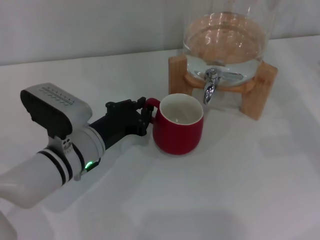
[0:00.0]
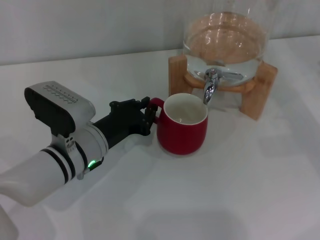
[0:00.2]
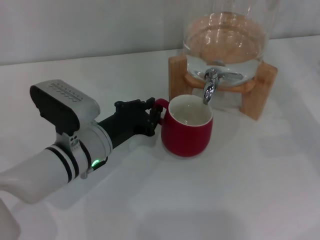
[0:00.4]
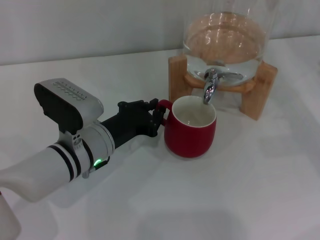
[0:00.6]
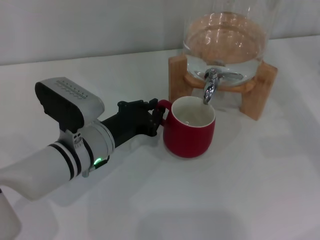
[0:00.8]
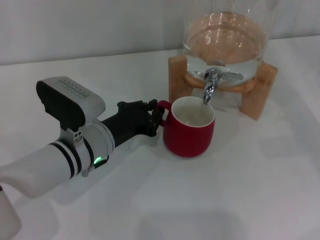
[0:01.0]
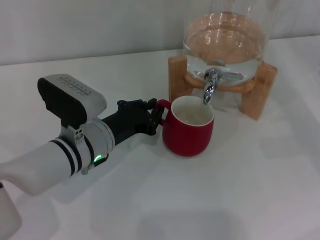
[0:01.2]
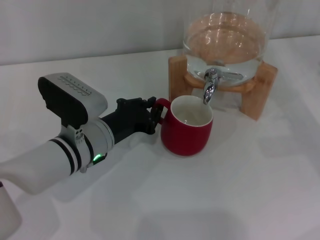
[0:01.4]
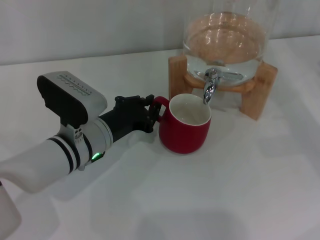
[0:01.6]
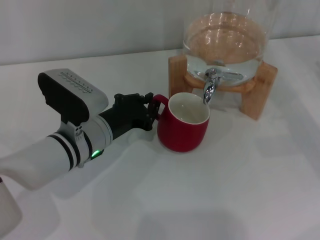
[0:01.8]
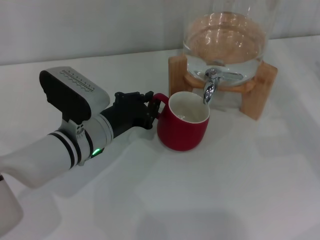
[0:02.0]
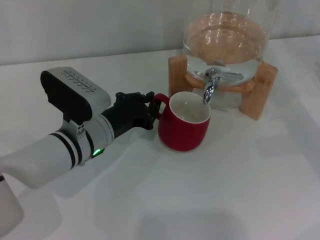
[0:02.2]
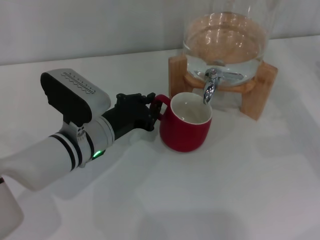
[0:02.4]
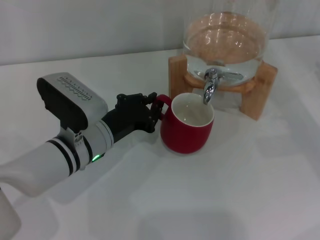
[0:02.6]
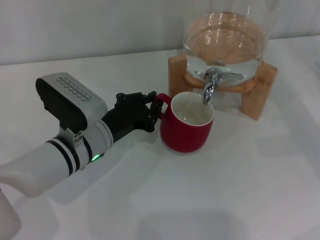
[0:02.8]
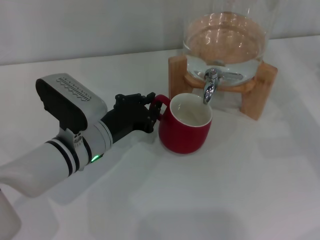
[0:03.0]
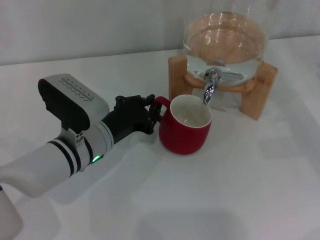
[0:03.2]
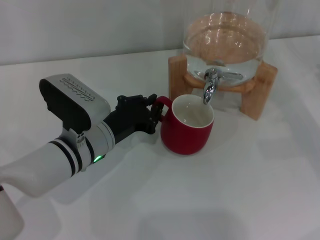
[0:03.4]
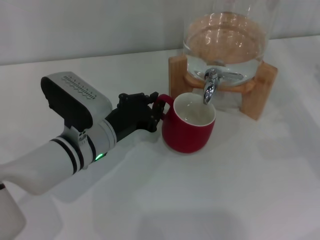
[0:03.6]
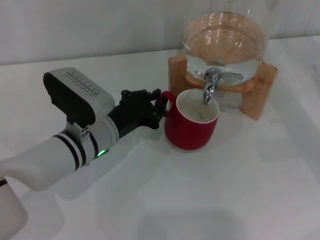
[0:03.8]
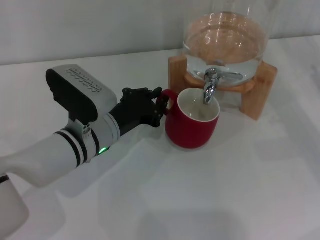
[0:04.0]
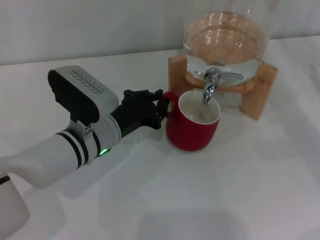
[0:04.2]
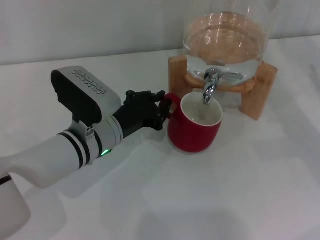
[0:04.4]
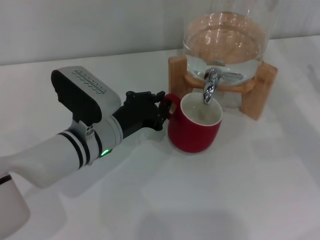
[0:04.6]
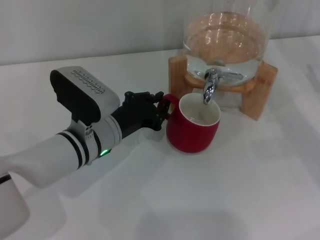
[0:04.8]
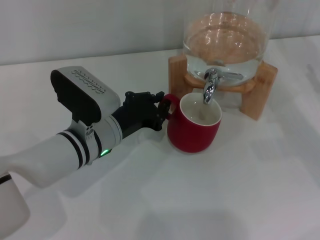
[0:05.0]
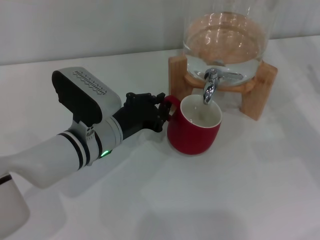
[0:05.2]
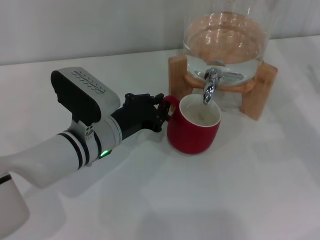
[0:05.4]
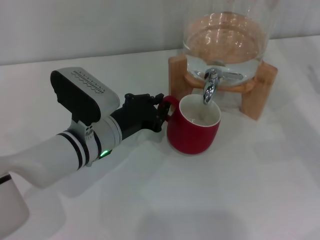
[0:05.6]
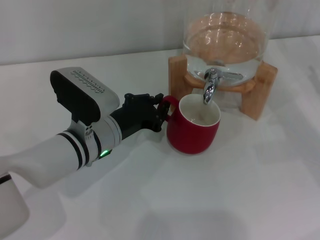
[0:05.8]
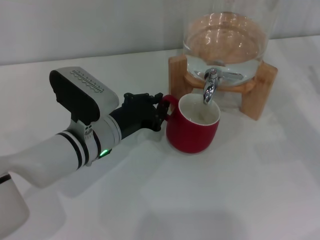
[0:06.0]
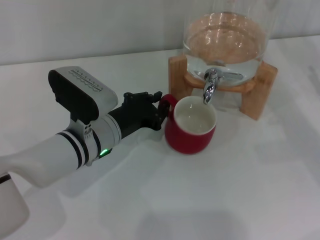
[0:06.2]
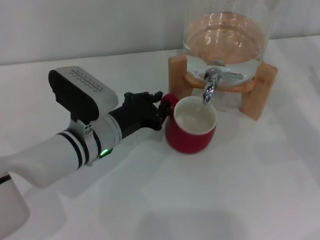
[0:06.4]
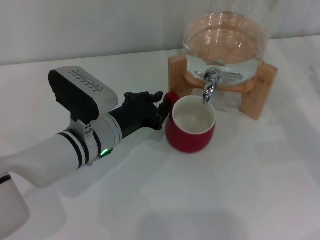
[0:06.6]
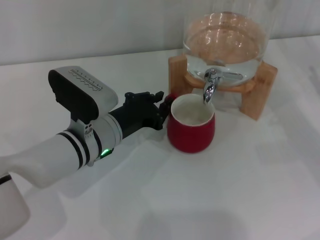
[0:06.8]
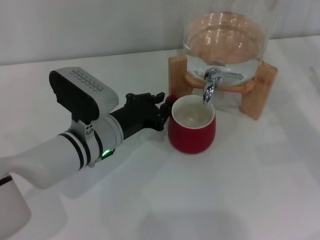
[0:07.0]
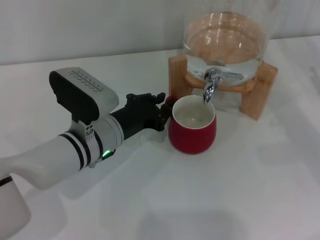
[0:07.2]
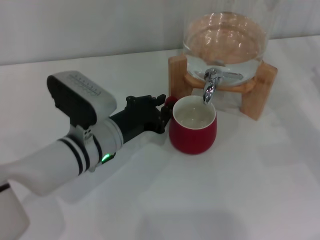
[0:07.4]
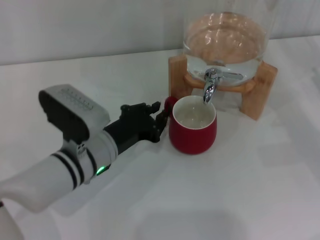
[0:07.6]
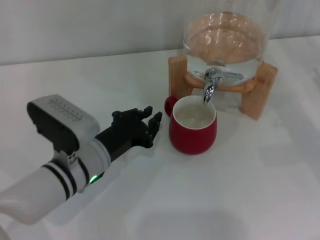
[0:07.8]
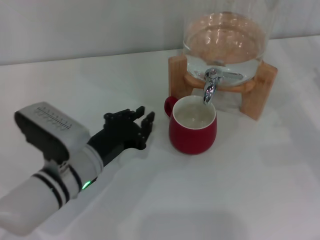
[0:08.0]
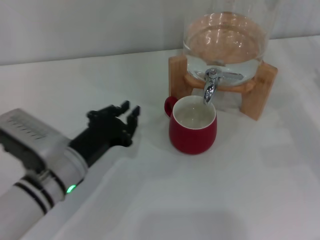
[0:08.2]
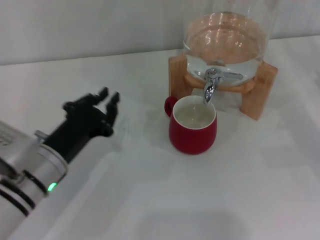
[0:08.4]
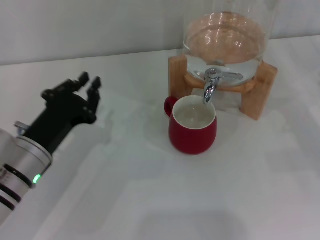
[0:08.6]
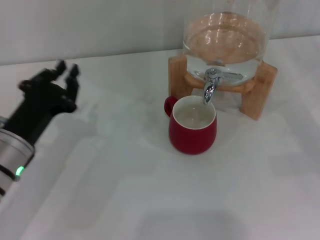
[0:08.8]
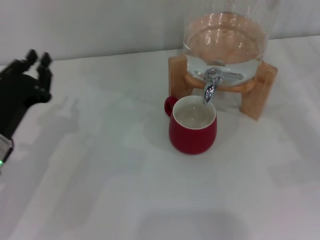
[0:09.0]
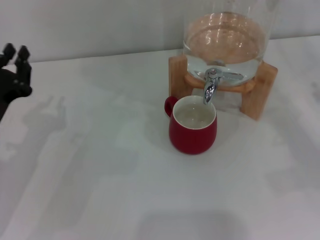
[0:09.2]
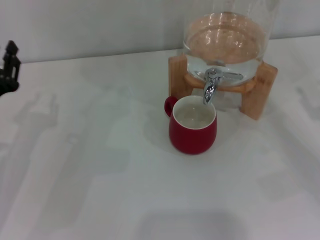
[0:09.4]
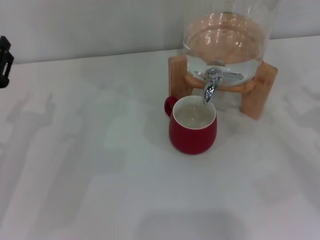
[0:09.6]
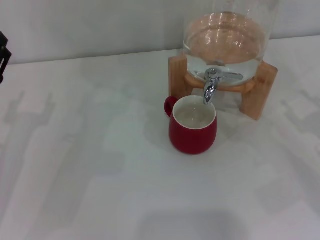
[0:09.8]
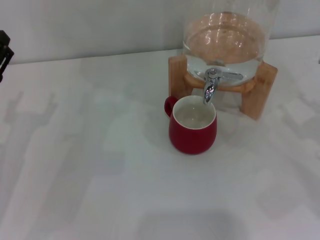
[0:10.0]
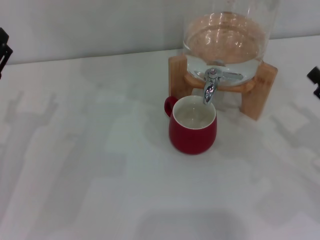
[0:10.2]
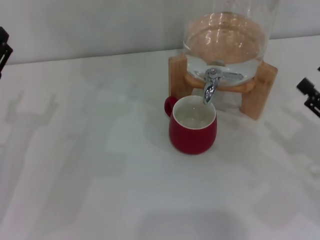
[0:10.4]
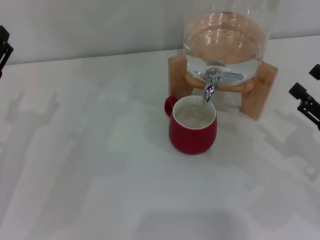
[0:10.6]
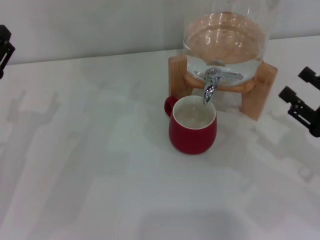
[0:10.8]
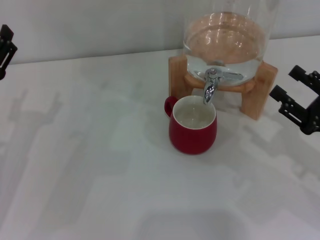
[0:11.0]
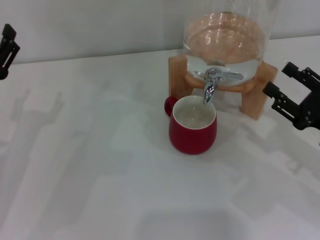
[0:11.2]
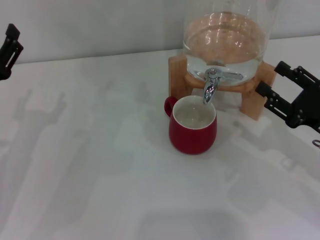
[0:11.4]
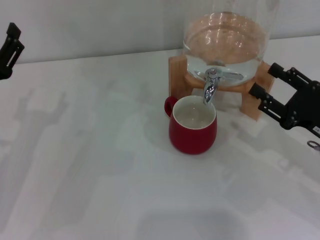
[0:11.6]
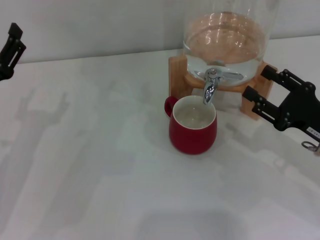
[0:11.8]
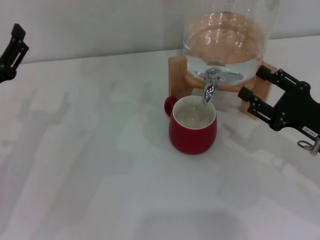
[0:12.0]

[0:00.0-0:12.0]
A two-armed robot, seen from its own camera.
Task of the whole recording: the left gripper pick up the red cup and place it horizontally under the faucet, the right gripper turn on the faucet to fill the cup, and then turn off the faucet.
Step, 0:00.0 to 0:07.6: Move the cup beneath the water dispenser nozzle with the left gripper.
0:00.0 to 0:01.6: There are only small adjustments of the grippers.
0:01.6 to 0:03.0: The two grippers keep their place.
0:03.0 to 0:04.4: The grippers make only small movements.
0:04.4 to 0:06.0: The two grippers keep their place.
0:06.0 to 0:07.6: There are only small adjustments of the grippers.
0:07.6 to 0:09.0: The left gripper shifts roughly 15 cm to the left.
0:09.0 to 0:10.4: The left gripper opens, while the right gripper moves to the left, about 5 cm.
0:10.4 to 0:12.0: The right gripper shifts by about 5 cm.

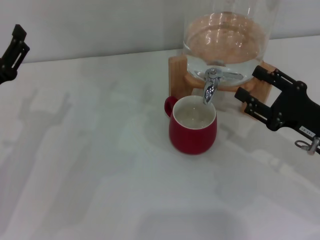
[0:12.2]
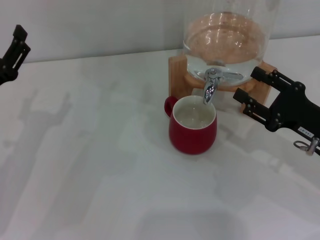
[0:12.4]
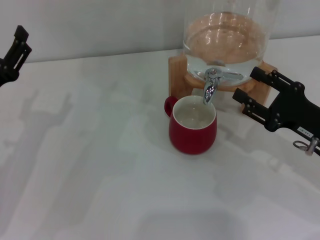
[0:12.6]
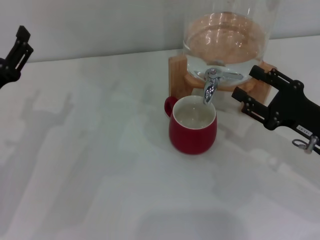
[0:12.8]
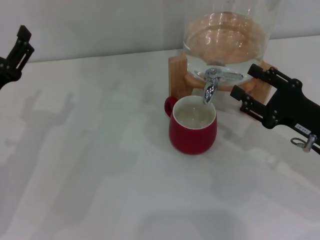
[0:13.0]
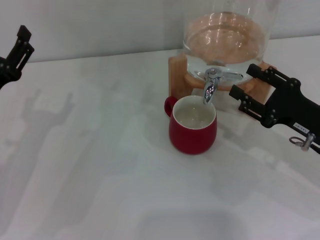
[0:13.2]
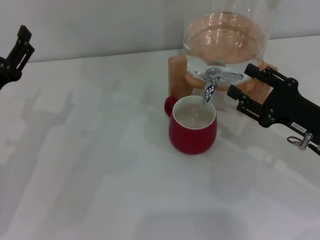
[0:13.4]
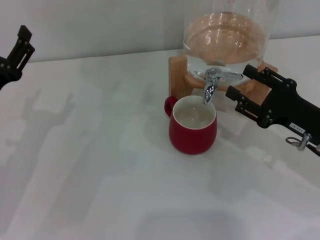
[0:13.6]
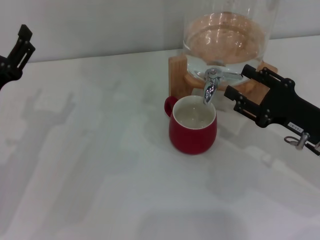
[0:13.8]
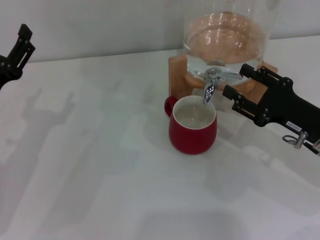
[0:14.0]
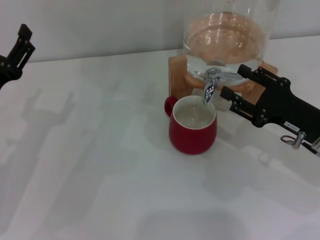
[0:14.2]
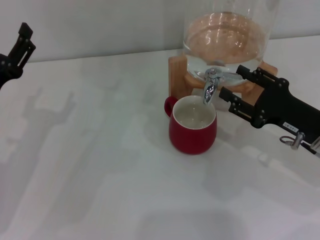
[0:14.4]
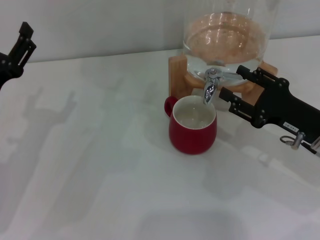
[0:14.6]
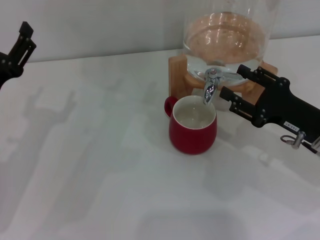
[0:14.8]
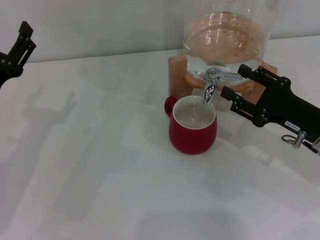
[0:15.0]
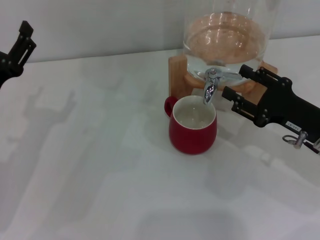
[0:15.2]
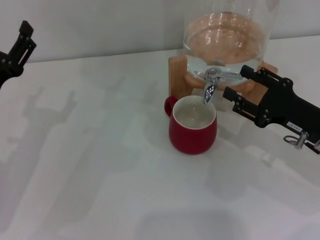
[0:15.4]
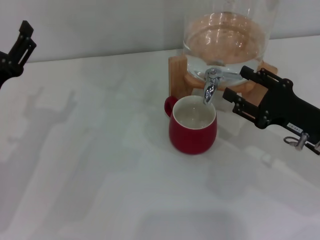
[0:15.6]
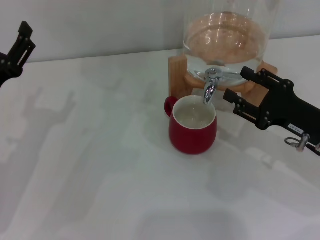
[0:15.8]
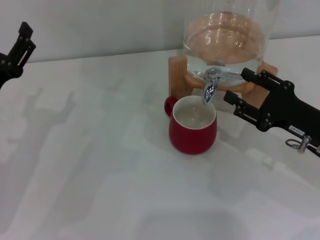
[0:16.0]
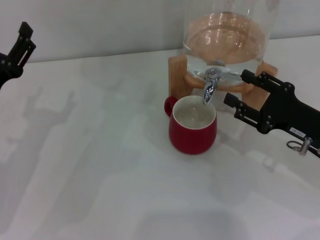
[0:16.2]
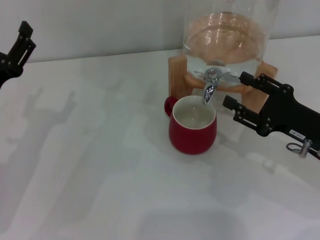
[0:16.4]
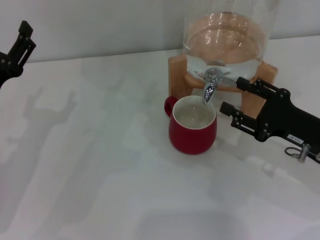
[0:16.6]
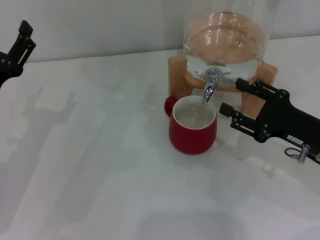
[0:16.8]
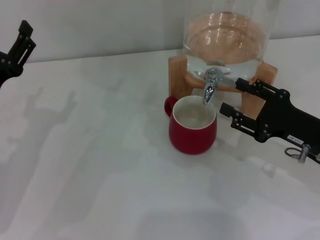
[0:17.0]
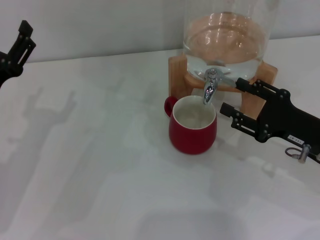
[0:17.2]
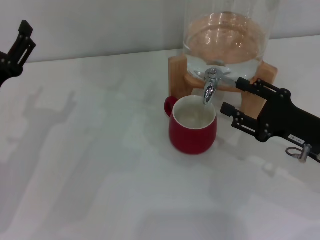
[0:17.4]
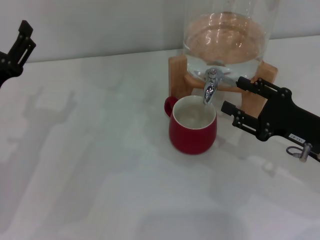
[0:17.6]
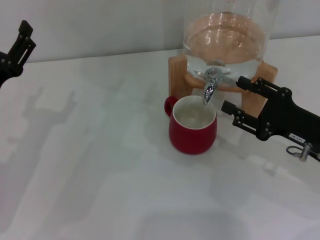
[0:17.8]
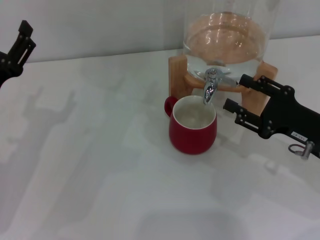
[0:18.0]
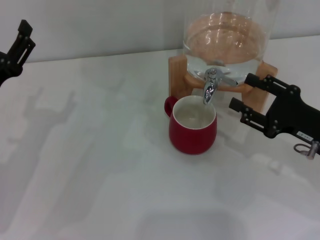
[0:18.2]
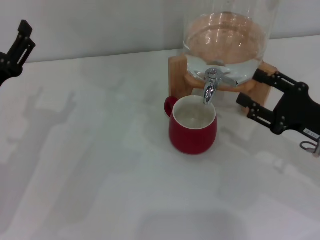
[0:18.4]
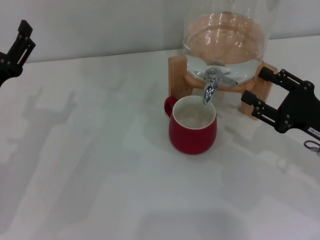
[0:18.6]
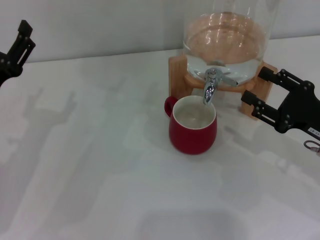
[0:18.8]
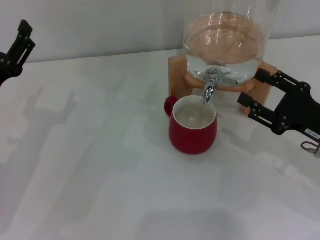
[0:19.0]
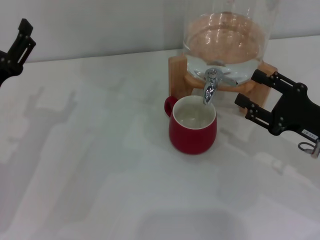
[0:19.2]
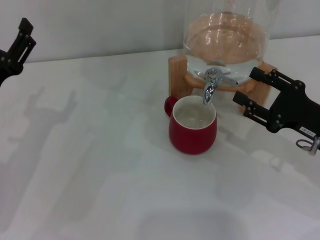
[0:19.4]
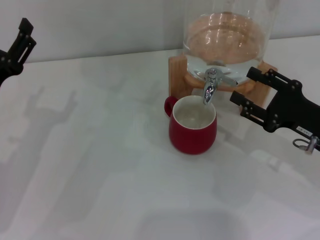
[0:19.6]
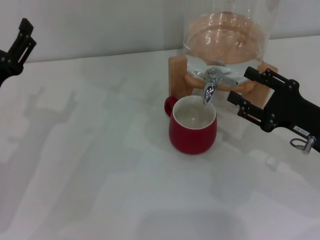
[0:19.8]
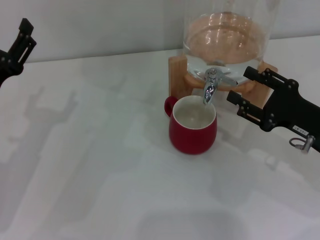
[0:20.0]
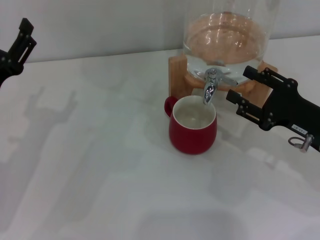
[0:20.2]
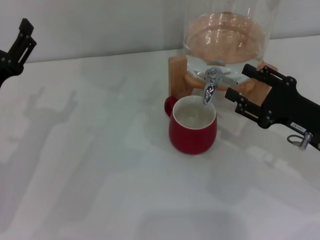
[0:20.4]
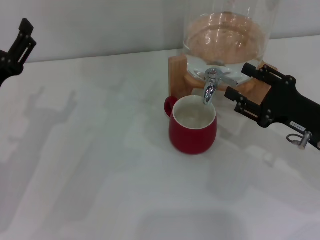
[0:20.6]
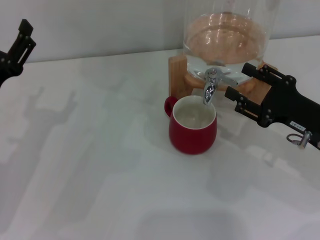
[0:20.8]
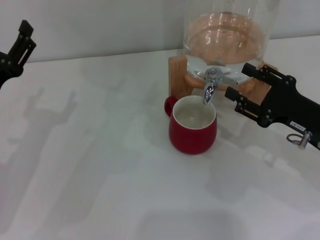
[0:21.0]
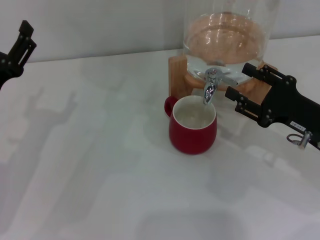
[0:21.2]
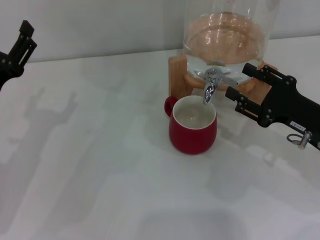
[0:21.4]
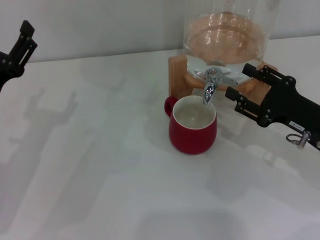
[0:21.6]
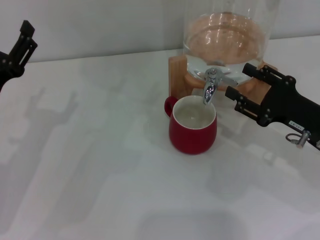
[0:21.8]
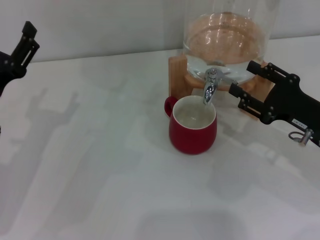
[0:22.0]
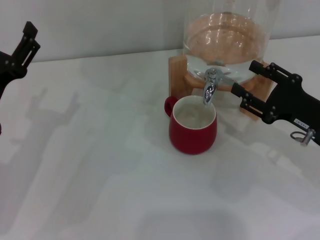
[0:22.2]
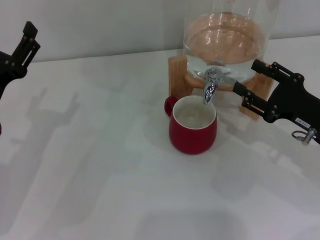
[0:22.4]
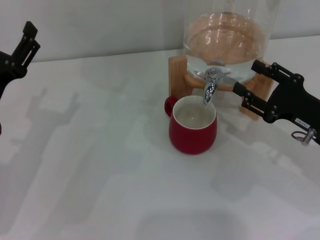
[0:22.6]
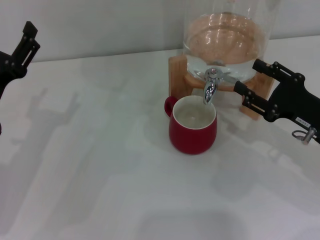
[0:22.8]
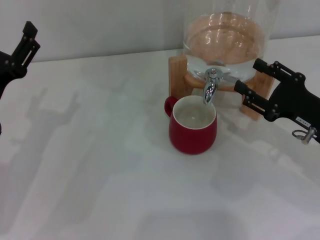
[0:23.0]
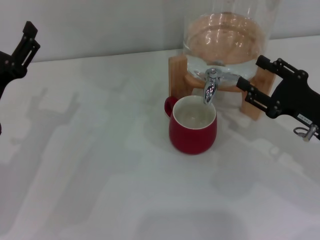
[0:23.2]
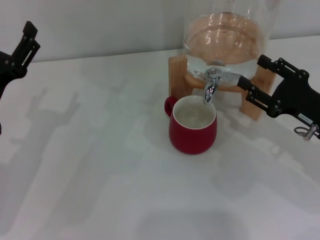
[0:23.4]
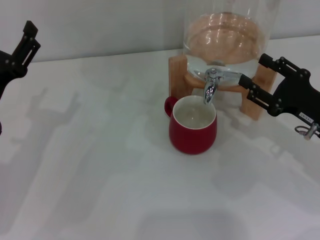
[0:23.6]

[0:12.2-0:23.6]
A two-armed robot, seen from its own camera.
Task of the whole recording: the left gripper pick up the red cup and place it horizontally under the faucet, the right gripper turn on the faucet to fill the cup, and then turn off the faucet.
Step, 0:12.2 to 0:18.2: Open the dispenser valve and fill the cup with water with the right gripper.
0:12.2 to 0:13.6: Both grippers stay put.
0:13.6 to 0:16.4: Neither gripper changes place.
0:16.4 to 0:17.8: Both grippers stay about where they are.
0:17.8 to 0:19.4: There are only small adjustments of the grippers.
0:19.4 to 0:20.8: Both grippers stay put.
0:20.8 to 0:22.2: Both grippers stay put.
0:22.2 to 0:23.6: Neither gripper changes place.
